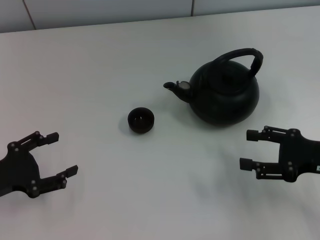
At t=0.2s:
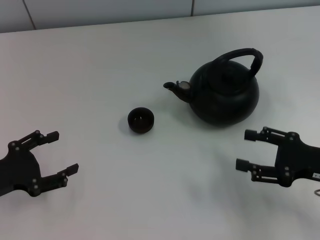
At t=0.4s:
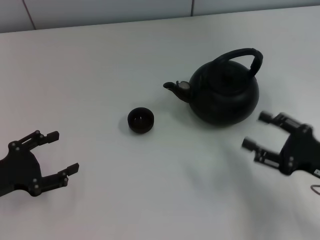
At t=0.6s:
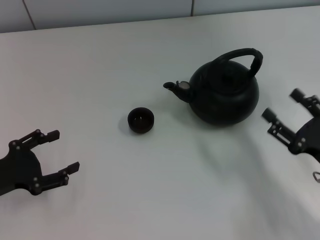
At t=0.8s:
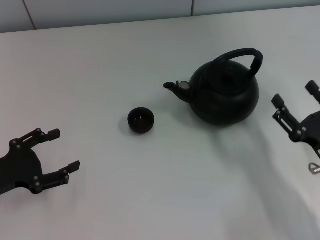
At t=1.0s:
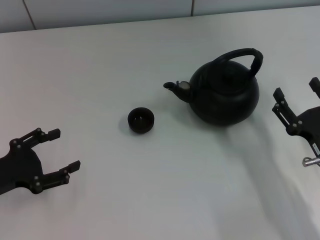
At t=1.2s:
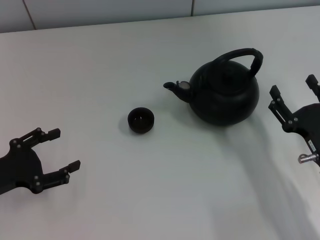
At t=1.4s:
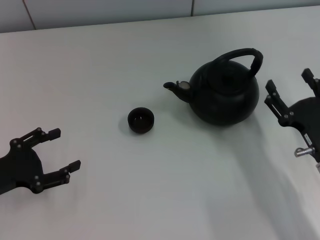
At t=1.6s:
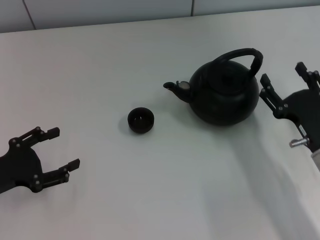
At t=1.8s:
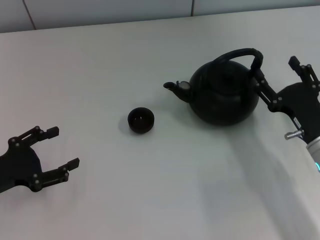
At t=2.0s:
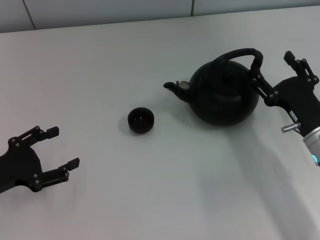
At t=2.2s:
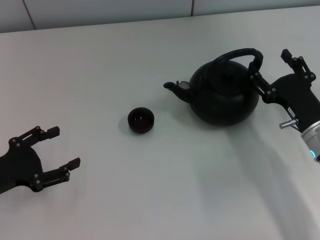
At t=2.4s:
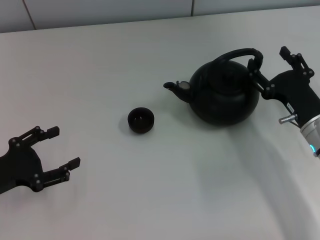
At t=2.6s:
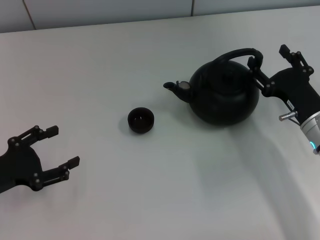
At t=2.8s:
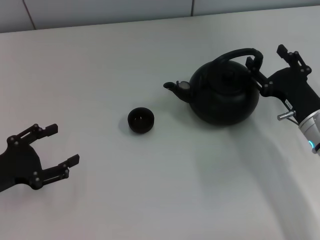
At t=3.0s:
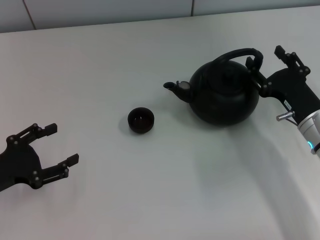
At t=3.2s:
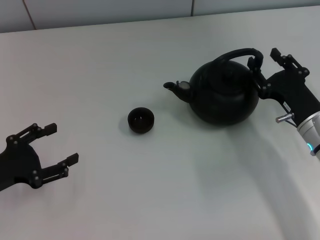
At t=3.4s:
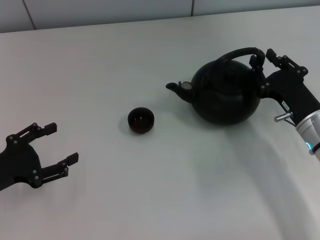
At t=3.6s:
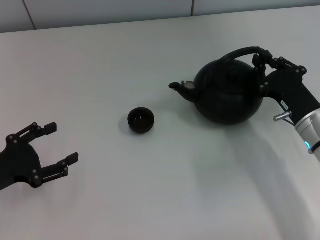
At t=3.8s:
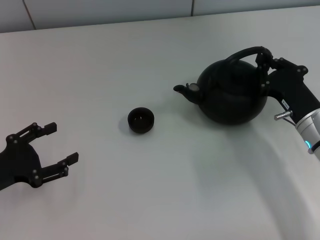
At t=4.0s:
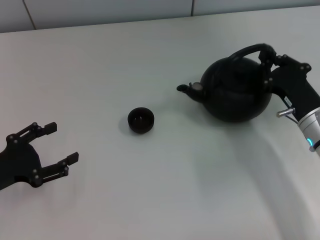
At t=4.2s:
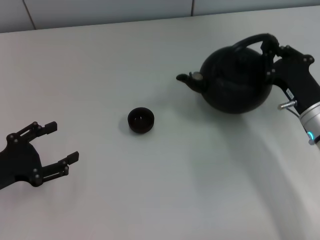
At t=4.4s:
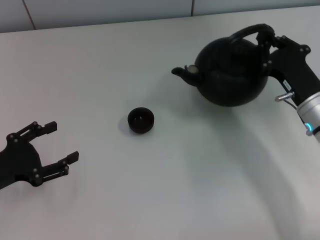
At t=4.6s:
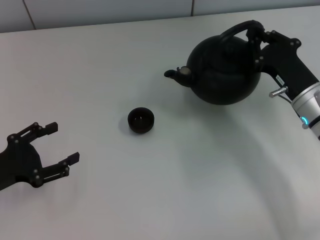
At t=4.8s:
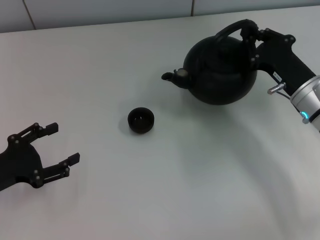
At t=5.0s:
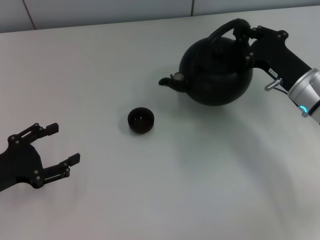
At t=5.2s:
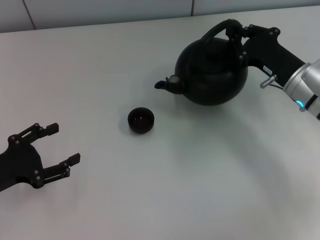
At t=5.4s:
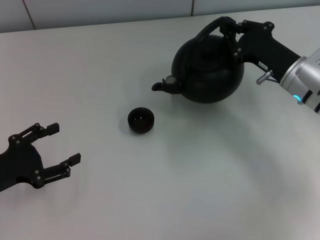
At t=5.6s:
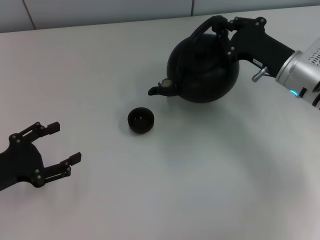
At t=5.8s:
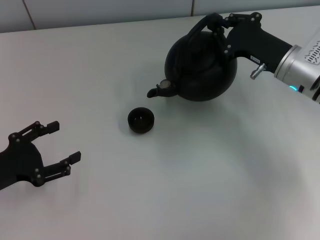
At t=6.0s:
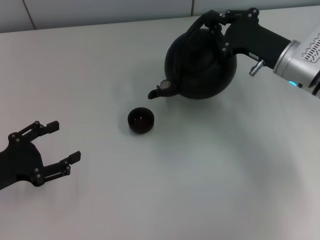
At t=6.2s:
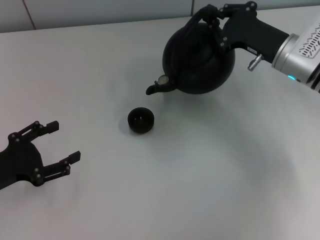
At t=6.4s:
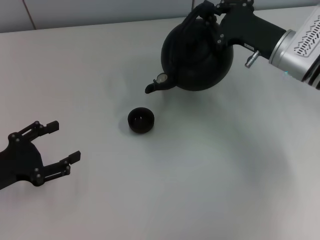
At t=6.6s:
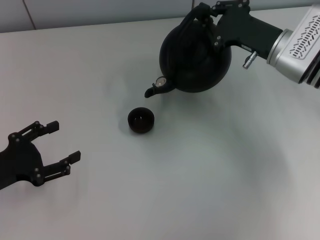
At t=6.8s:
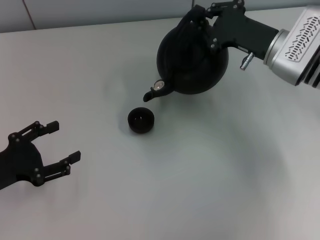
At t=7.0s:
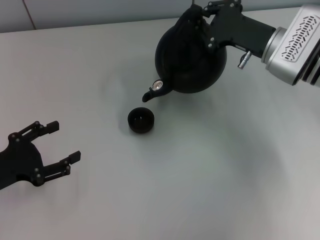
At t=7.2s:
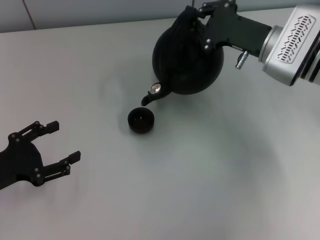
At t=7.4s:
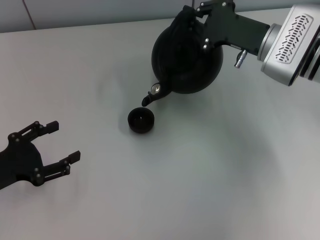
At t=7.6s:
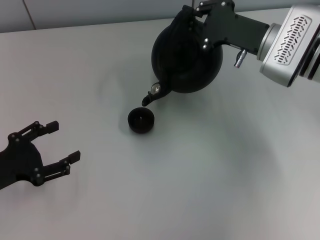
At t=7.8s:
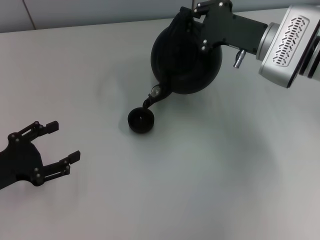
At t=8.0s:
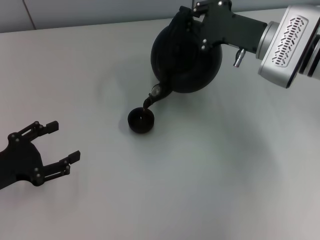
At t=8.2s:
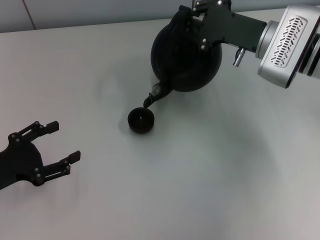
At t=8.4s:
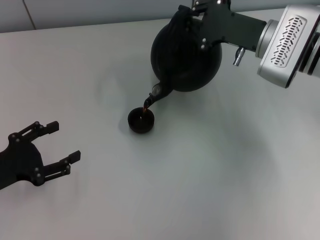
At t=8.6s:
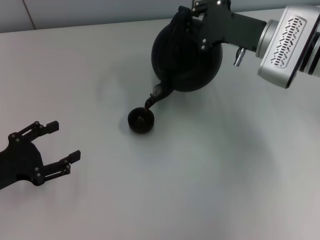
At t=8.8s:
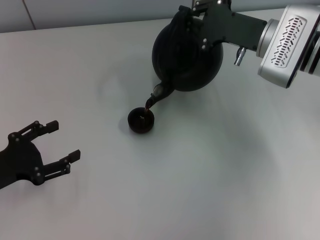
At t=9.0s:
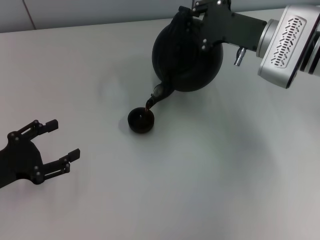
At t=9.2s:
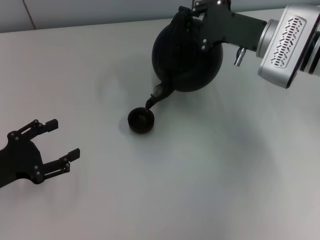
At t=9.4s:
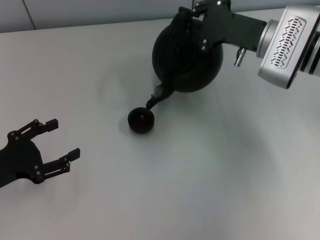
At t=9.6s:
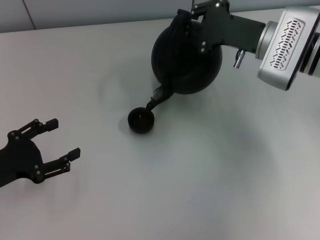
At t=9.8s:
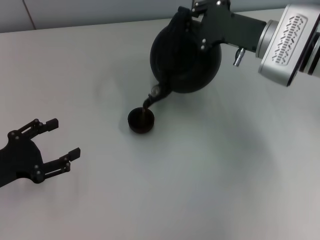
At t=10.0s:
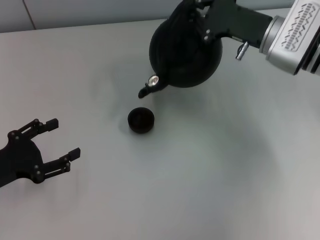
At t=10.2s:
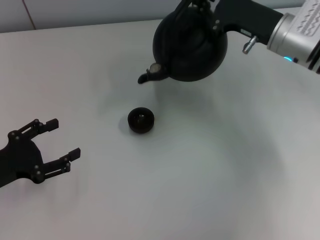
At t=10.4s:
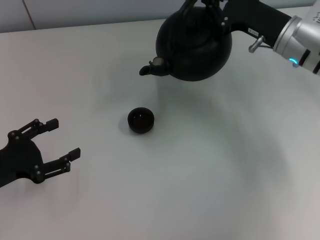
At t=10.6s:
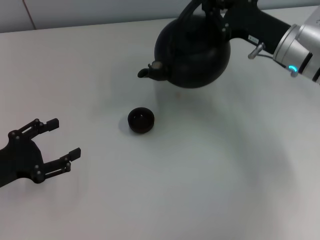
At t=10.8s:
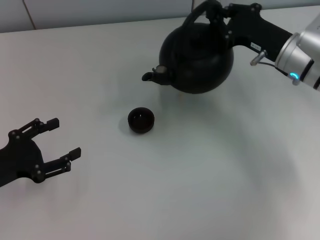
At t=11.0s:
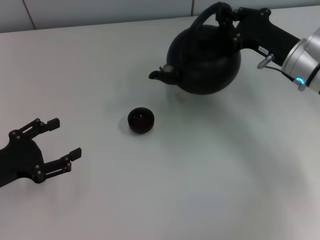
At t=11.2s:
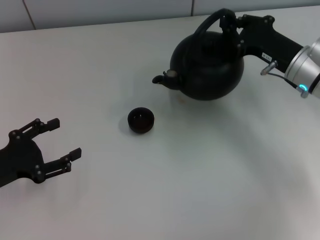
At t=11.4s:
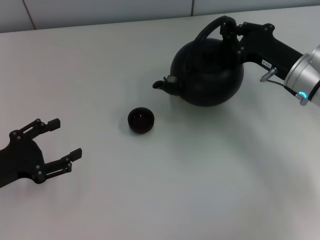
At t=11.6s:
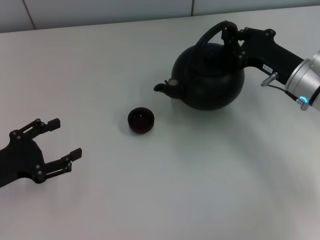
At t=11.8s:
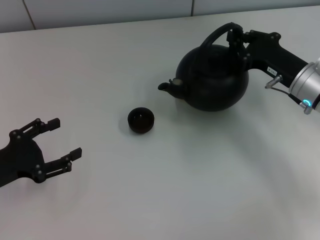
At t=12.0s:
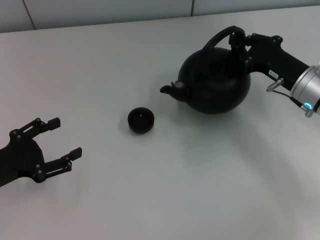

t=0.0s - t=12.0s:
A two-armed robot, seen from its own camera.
Task of the whole recording: Grasp the handle of the teapot with one hand and pour tea into the teacup.
Step, t=0.0s - t=4.2s: Pick up the teapot with the right gripper.
t=0.0s - t=1.6s: The right gripper goes approximately 5 cm to the left.
t=1.6s - t=3.0s: The right gripper heads forward, covering roughly 5 cm.
t=3.0s - t=4.4s: The right gripper closes its fingers.
t=4.4s - t=6.0s: The right gripper travels forward by roughly 5 cm.
t=6.0s - t=7.6s: The grippers make only small movements.
t=7.6s - t=9.0s: The grippers move only a little.
t=10.4s - t=12.0s: The right gripper moves downward, some 5 cm.

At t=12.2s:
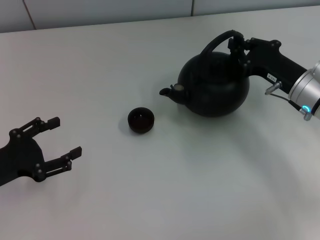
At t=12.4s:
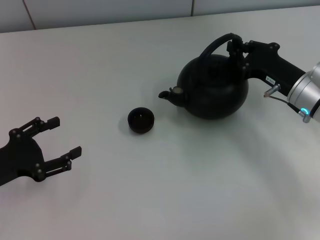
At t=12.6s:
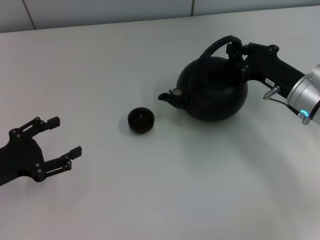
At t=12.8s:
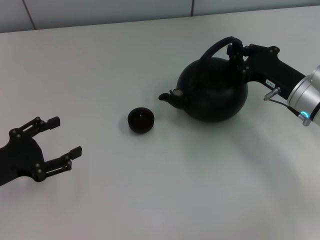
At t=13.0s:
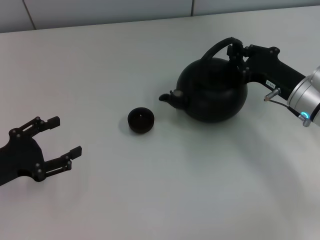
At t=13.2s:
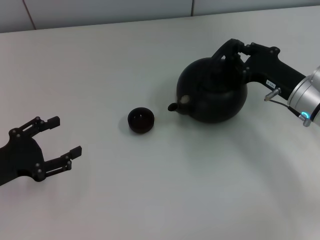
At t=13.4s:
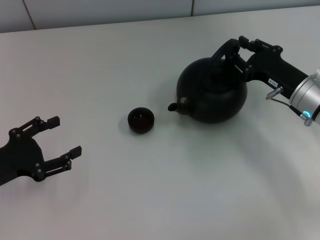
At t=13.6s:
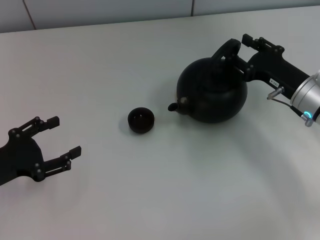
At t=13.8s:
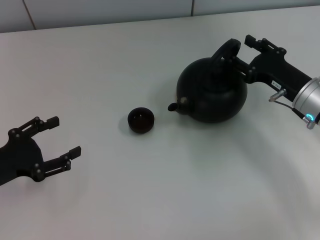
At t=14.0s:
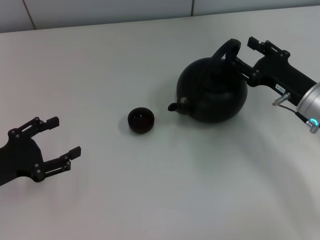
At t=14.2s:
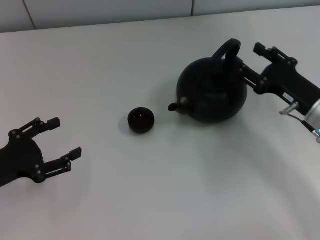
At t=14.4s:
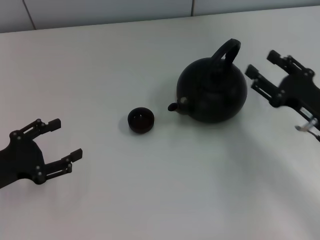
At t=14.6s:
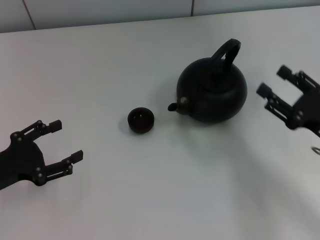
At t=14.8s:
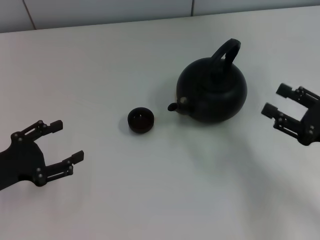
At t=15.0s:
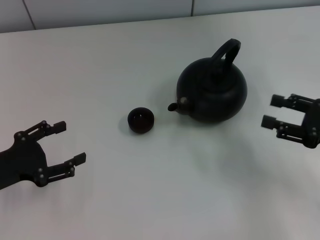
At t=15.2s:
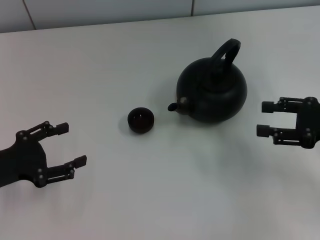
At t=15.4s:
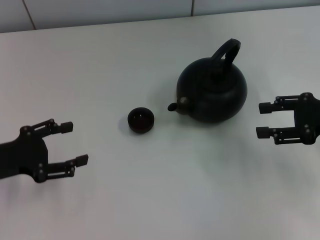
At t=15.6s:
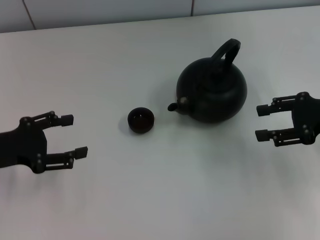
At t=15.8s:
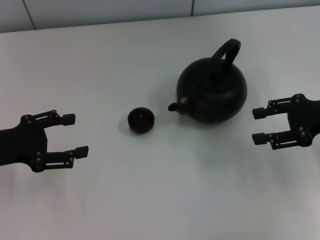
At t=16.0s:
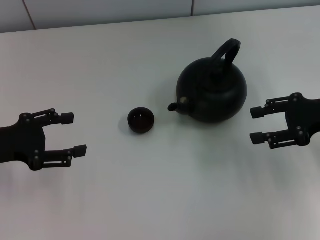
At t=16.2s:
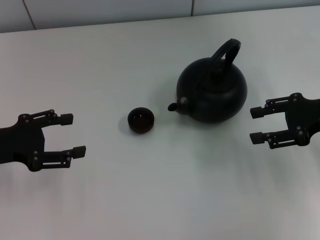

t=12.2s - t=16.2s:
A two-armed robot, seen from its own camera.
Task of the whole recording: Grasp the handle of the teapot with one hand and pour tea into the teacup.
Step, t=12.2s - t=14.4s: Put down the teapot with the right gripper.
t=12.2s - t=13.6s: The right gripper opens.
t=13.6s - t=14.8s: The right gripper heads backward and to the right, covering roughly 15 cm.
t=14.8s - t=16.2s: The left gripper ends up approximately 5 cm from where it was; the right gripper moves forward and upward, about 10 cm.
